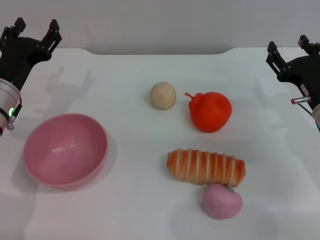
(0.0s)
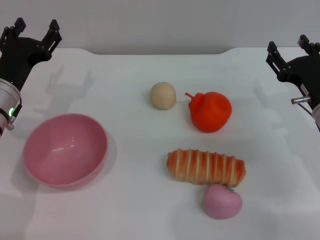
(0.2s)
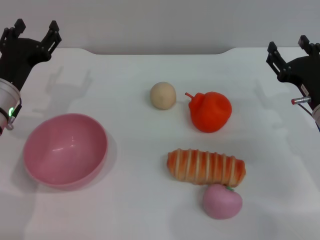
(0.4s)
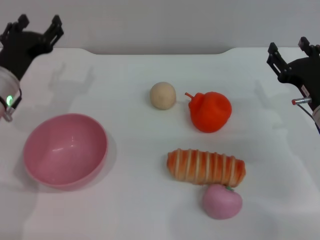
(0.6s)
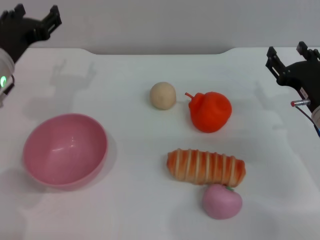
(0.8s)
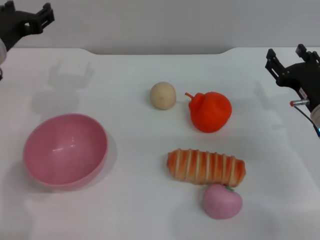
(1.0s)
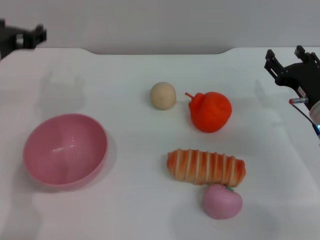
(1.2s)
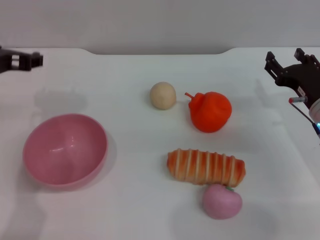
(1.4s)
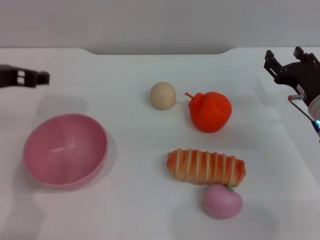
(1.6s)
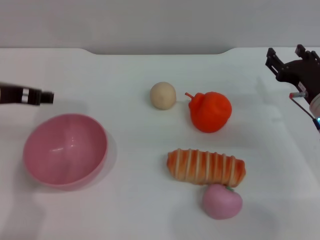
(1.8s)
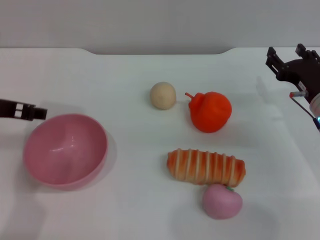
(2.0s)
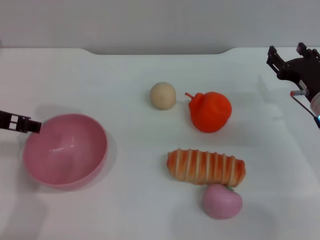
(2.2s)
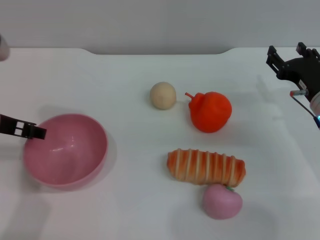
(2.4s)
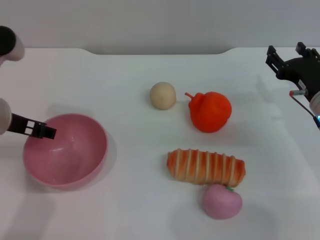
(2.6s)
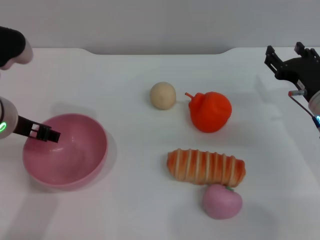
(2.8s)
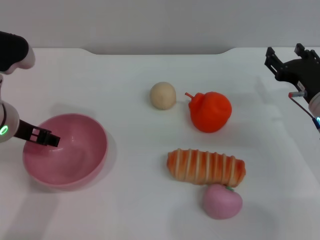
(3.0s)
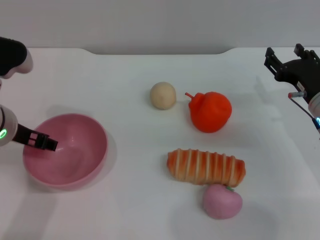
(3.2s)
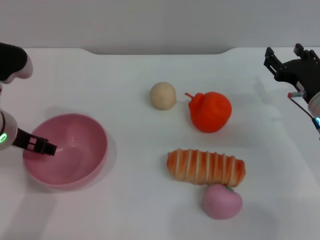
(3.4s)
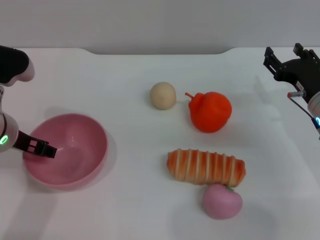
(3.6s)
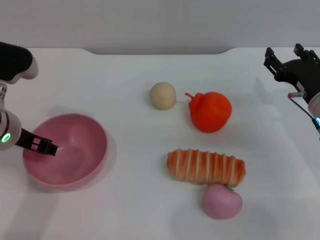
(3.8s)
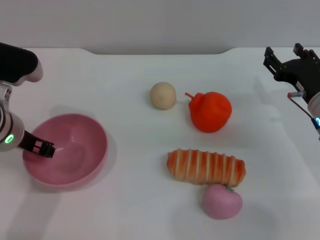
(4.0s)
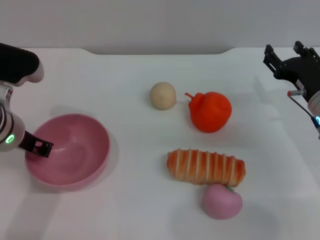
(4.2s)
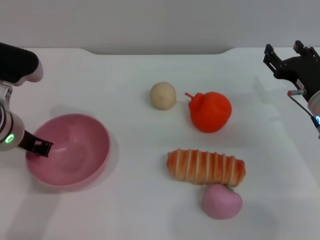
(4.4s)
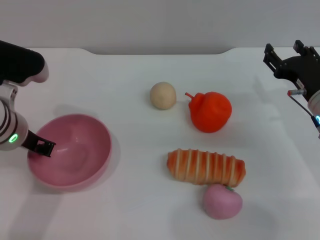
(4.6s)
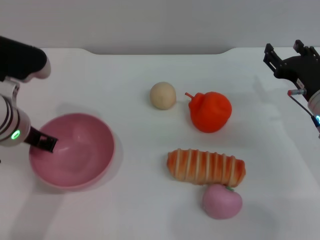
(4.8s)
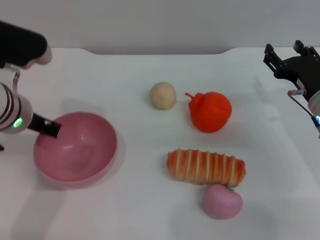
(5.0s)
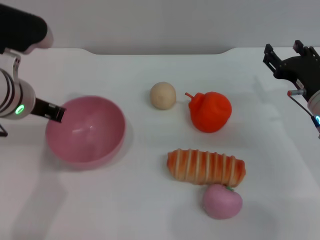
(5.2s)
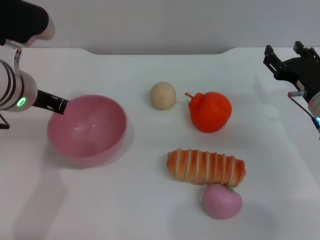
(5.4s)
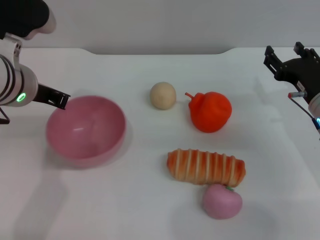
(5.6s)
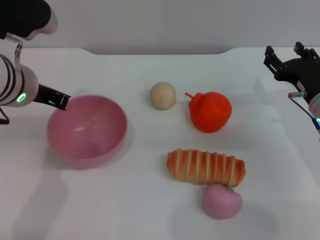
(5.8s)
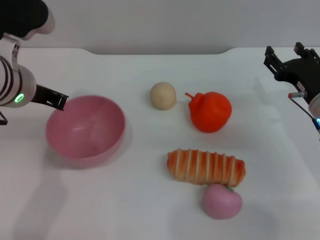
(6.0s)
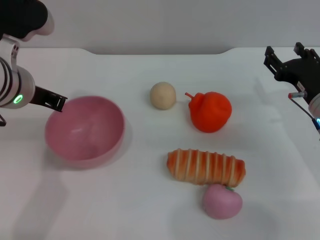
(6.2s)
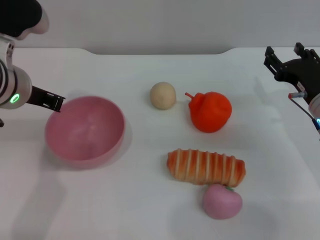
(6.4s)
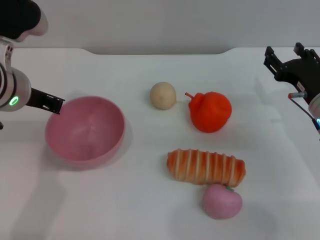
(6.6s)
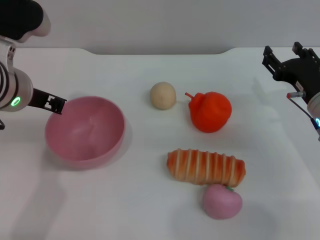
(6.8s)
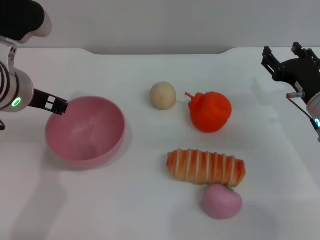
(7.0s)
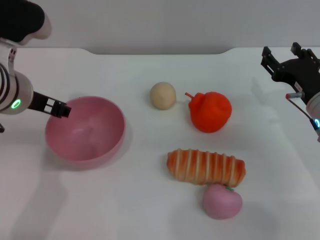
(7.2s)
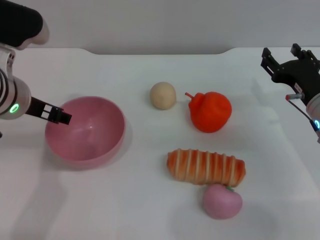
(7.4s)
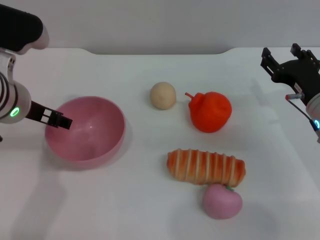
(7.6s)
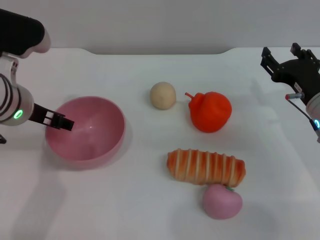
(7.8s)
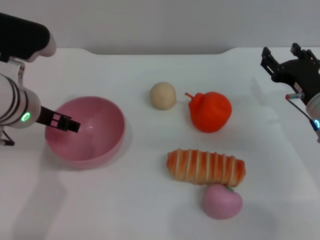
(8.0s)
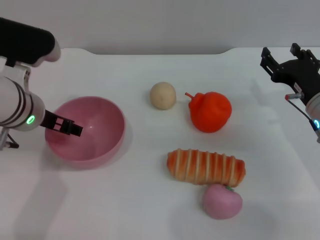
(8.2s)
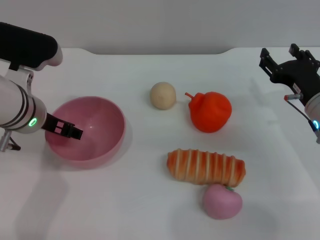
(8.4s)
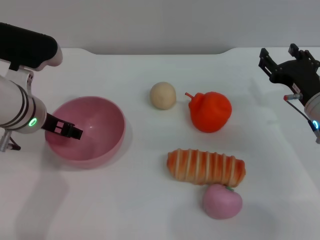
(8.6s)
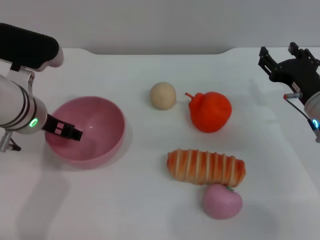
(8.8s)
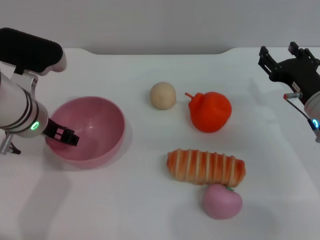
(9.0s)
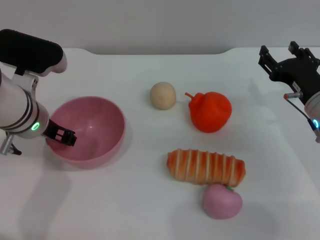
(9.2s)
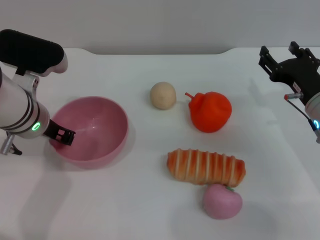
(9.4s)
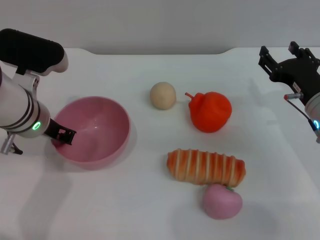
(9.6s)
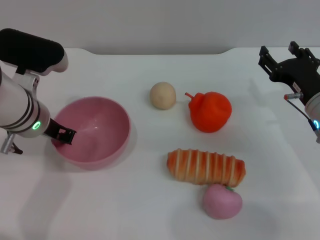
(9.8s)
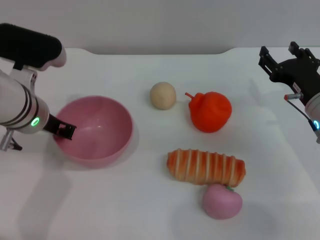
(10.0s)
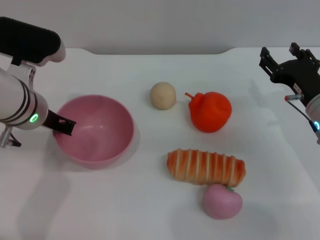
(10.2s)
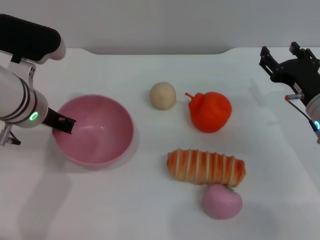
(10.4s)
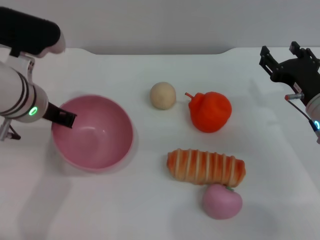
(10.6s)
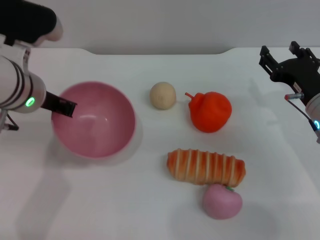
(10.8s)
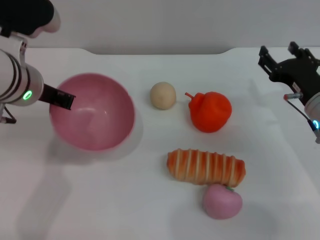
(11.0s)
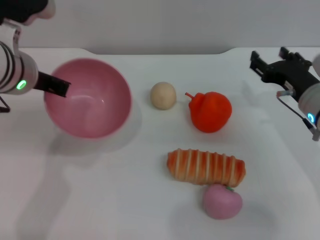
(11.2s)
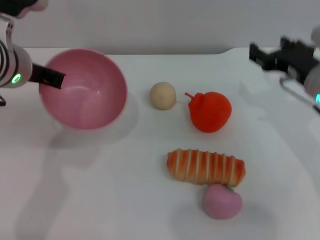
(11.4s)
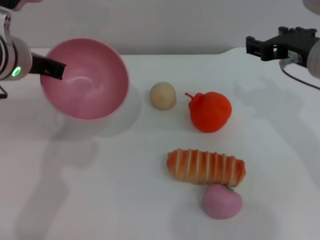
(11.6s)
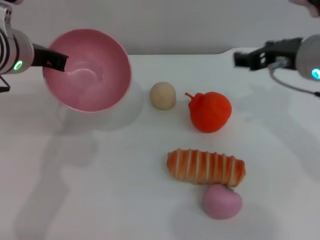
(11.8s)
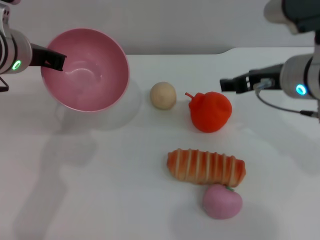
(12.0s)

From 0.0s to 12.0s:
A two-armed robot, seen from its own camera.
Task of the whole recording: put the orange into the pink bowl and pour it out repeatedly.
Step, from 0.0s to 11.0s: Pick up the bowl with the left gripper.
From 0.0s to 1.6s: The left gripper travels upward by some 15 cm.
From 3.0s to 4.4s: The left gripper closes up.
From 4.4s to 6.0s: The left gripper moves upward, approximately 5 cm, and closes its fingers.
From 6.0s to 7.6s: The left gripper opens its fingers.
From 7.6s to 9.0s: The left gripper ends up about 5 cm from where it was.
From 9.0s to 10.4s: The left gripper closes its fingers.
From 10.4s to 12.0s: The right gripper is displaced upward and to the left by approximately 15 cm; the left gripper is displaced upward by some 5 cm.

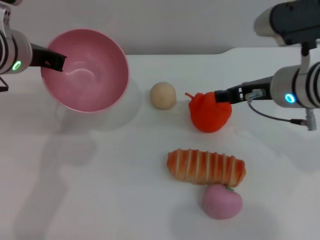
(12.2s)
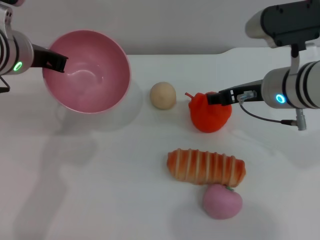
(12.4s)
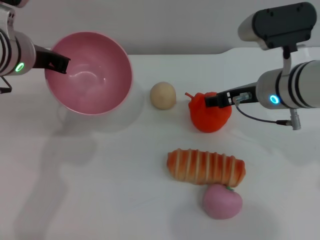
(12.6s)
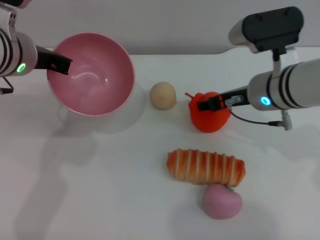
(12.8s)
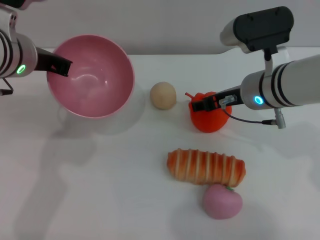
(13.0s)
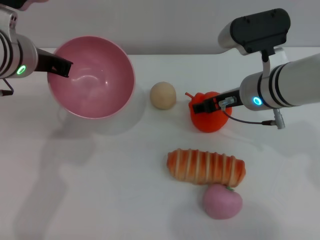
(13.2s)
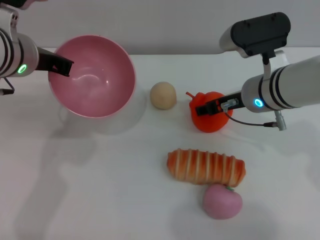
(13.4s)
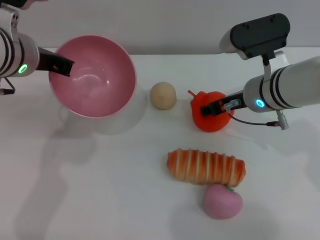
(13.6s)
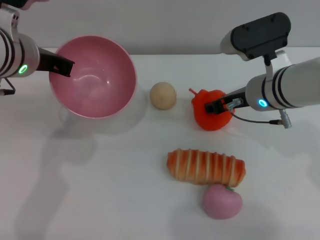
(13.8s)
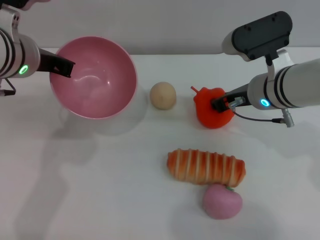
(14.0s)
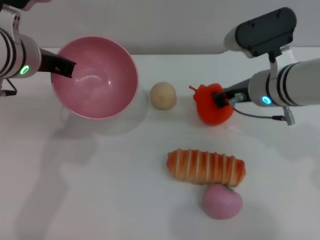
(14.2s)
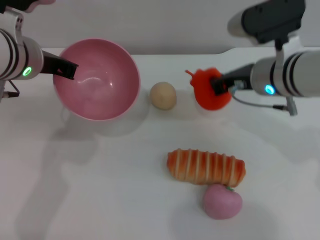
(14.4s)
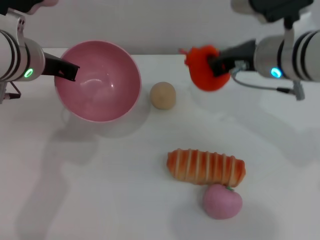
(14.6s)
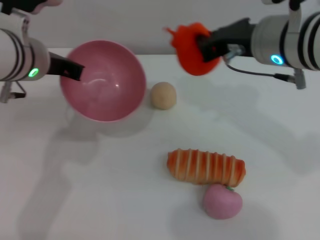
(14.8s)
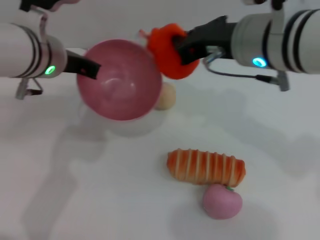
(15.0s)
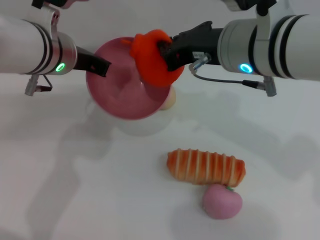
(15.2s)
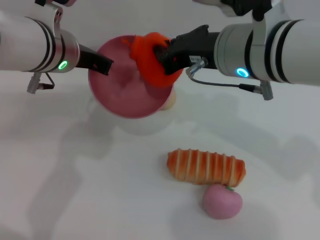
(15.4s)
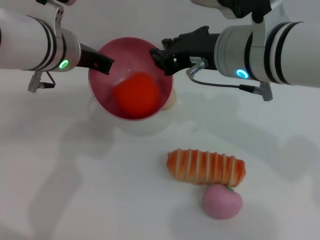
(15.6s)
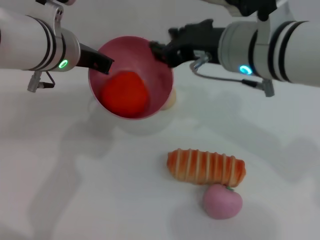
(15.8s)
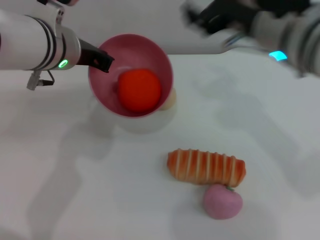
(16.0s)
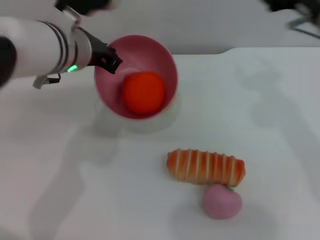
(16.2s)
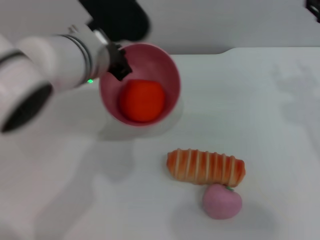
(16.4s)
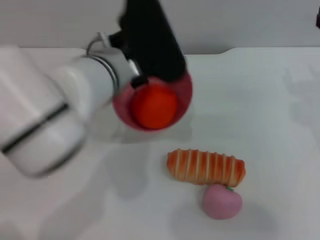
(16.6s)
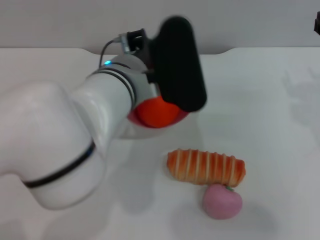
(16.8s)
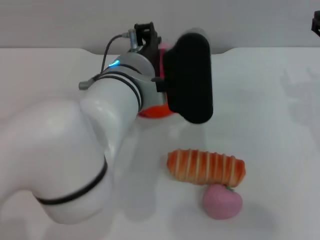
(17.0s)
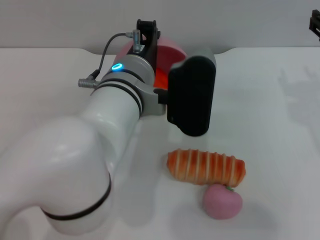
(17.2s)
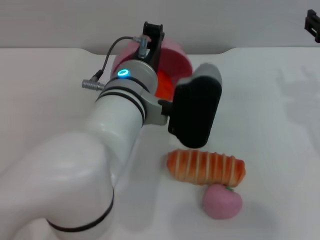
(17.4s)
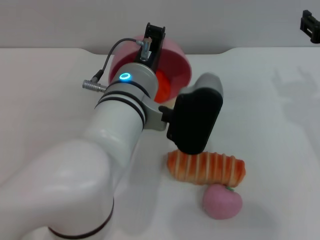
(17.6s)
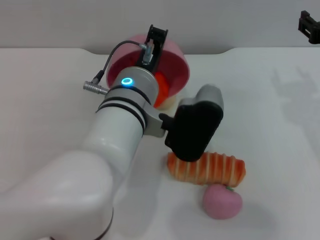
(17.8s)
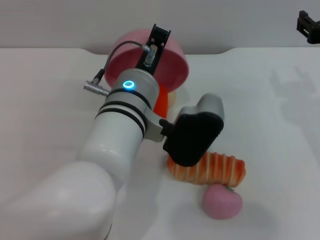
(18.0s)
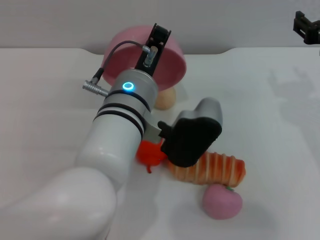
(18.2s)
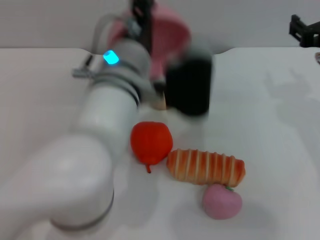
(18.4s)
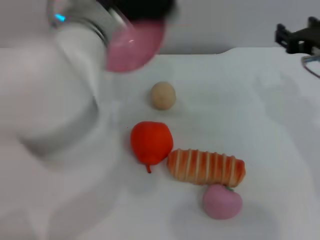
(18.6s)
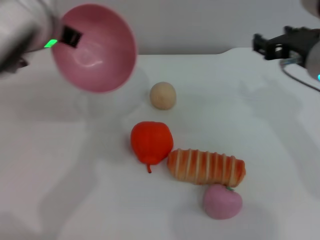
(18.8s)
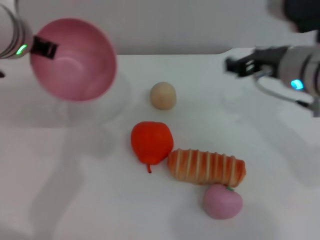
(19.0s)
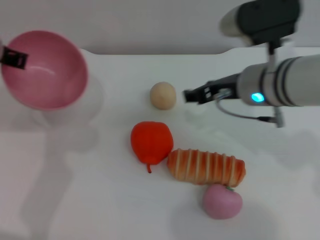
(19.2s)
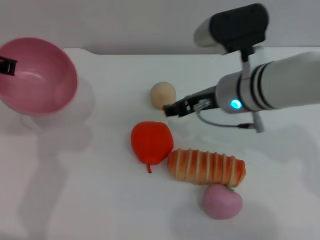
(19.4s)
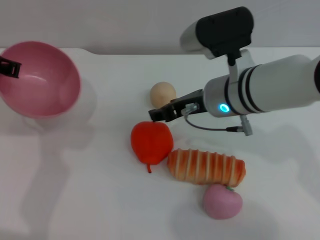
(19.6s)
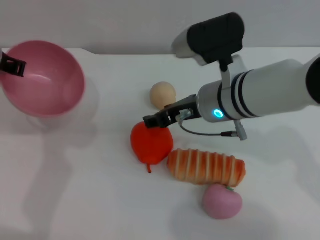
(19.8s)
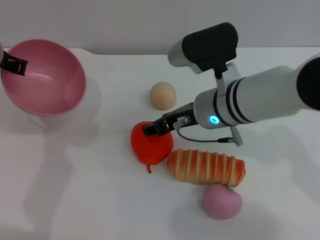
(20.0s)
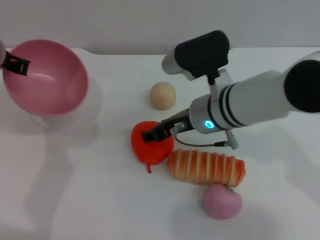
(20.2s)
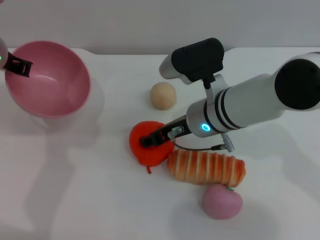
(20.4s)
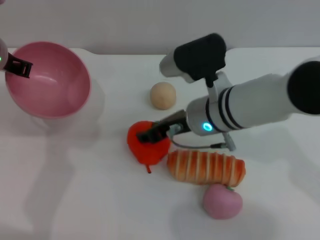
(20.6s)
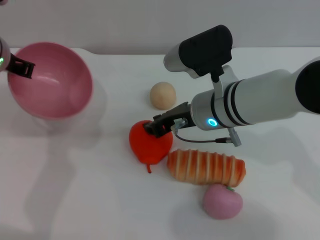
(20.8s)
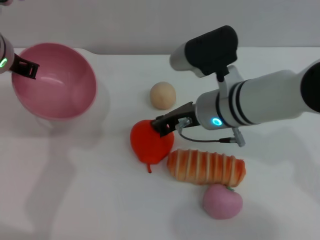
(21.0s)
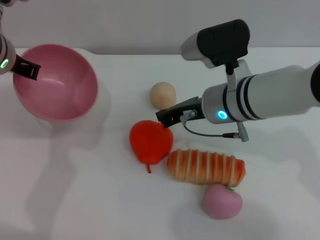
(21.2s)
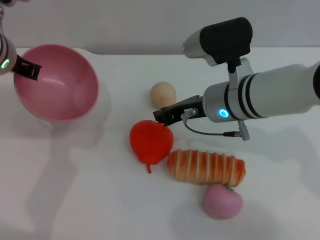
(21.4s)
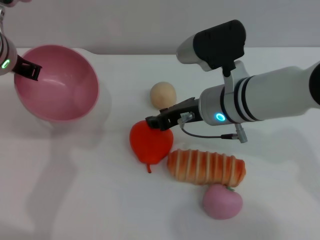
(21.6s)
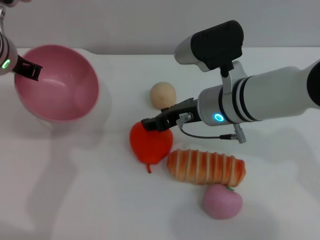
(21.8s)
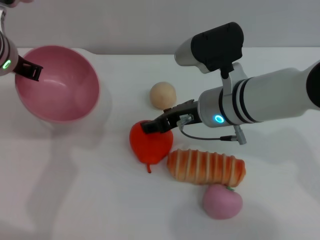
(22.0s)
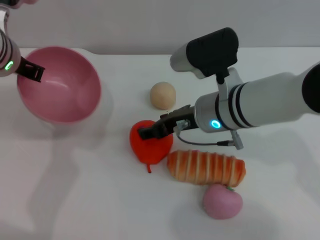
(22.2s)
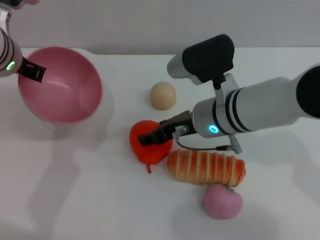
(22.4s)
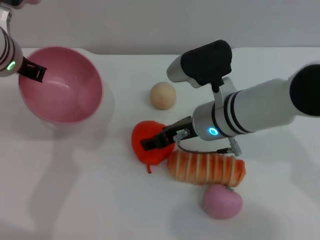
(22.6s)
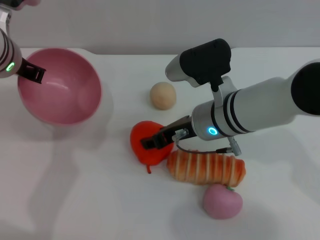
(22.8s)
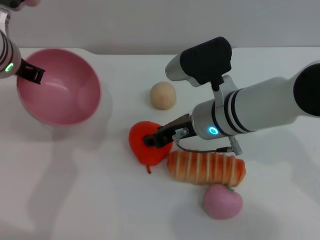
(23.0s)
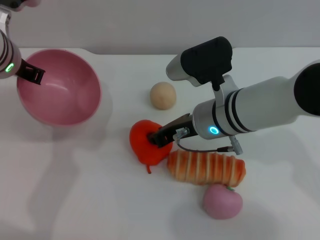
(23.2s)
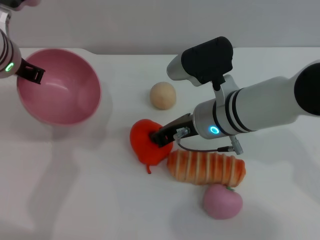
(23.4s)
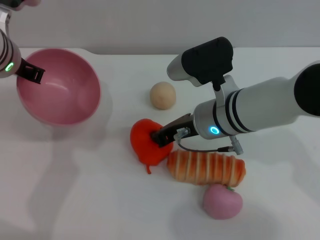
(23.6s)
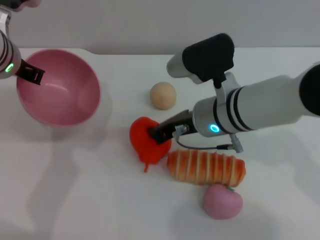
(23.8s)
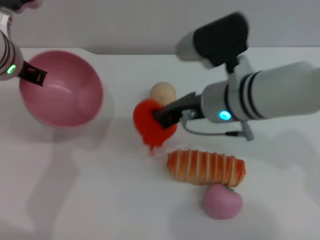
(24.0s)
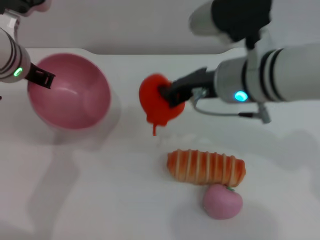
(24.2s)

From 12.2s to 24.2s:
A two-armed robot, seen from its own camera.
Task of the whole recording: put the orange into the pink bowl and pour it out repeatedly.
Step, from 12.2s to 14.4s: Pick up the orange with the right gripper.
Step, from 14.6s to 15.8s: Place the orange into the bowl.
Step, from 16.0s to 18.4s: Pour the orange out of the bowl.
Step, from 18.6s to 24.2s: Pick up the orange with the right gripper.
From 12.2s to 13.8s: The right gripper changes place by approximately 5 cm.
From 13.8s to 15.2s: The right gripper heads upward, to the left and backward, covering approximately 15 cm, and closes up.
From 15.2s to 16.6s: The left gripper shifts approximately 5 cm to the right, while the right gripper goes some 15 cm to the right, and opens.
From 16.6s to 18.2s: The left gripper shifts by about 5 cm.
From 18.2s to 19.8s: The right gripper goes approximately 15 cm to the left; the left gripper travels to the left and forward by some 20 cm.
From 19.8s to 21.2s: The right gripper closes.
From 21.2s to 22.6s: The right gripper opens its fingers.
From 22.6s to 24.2s: The right gripper travels upward by about 10 cm, and closes its fingers.
